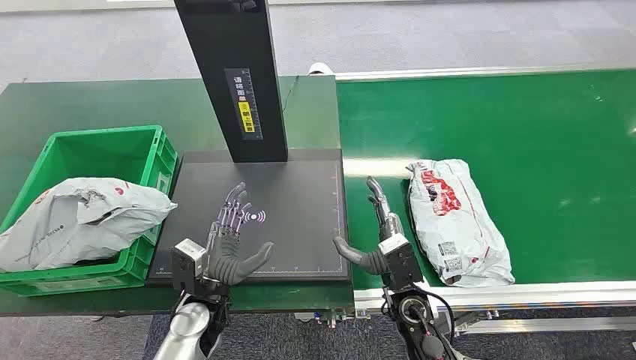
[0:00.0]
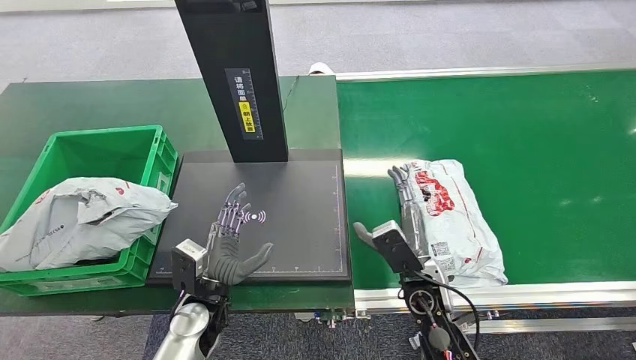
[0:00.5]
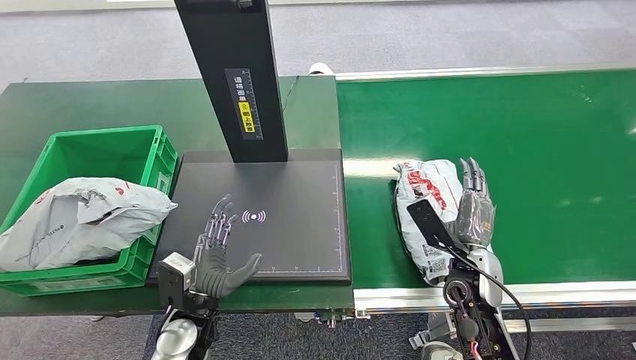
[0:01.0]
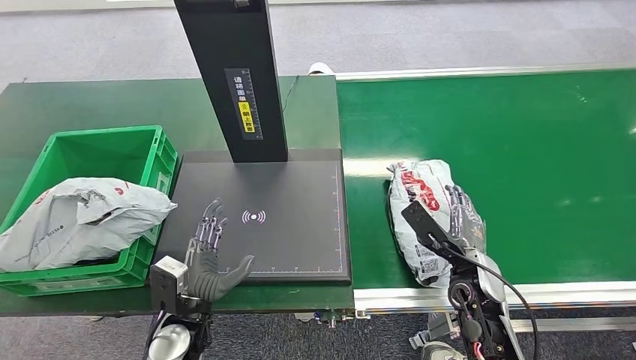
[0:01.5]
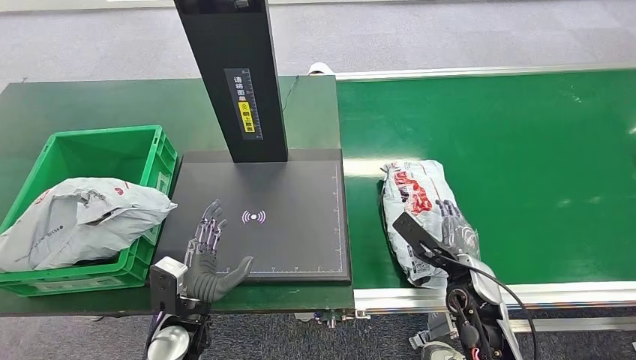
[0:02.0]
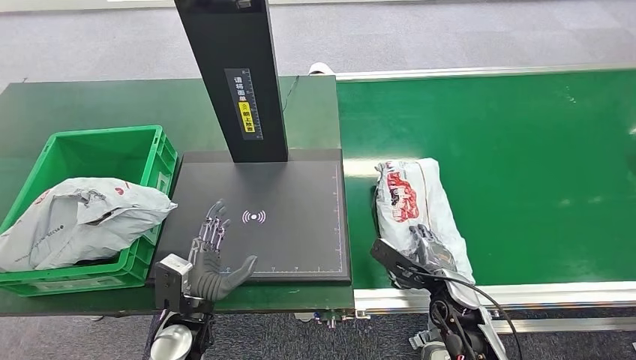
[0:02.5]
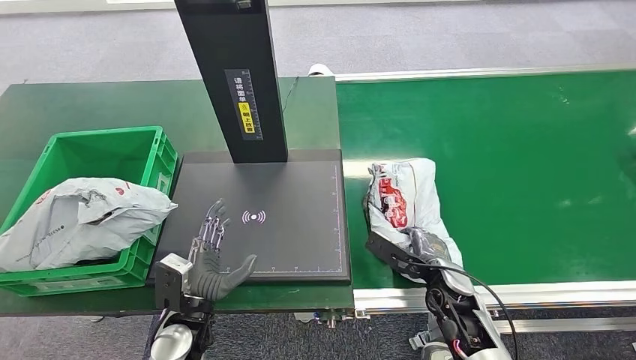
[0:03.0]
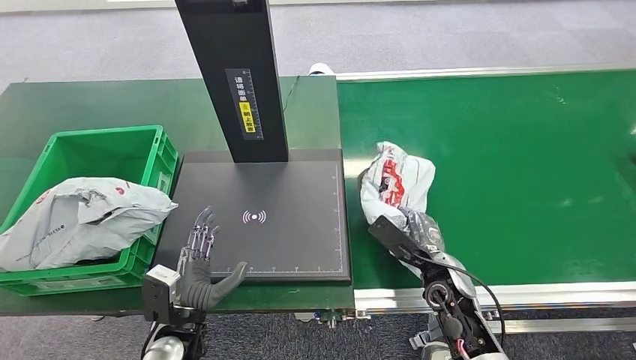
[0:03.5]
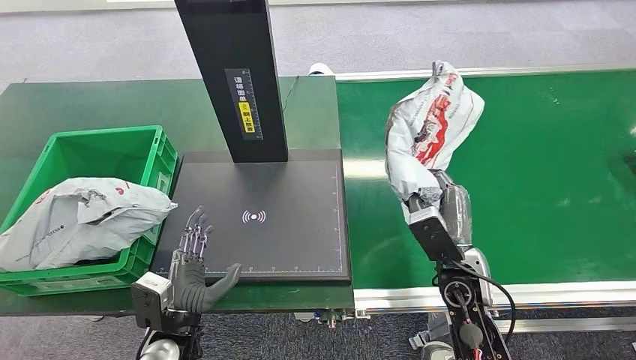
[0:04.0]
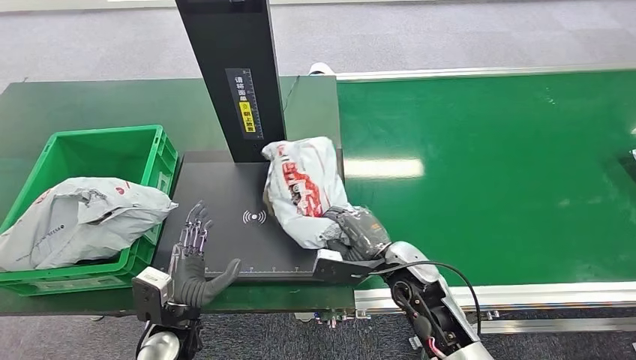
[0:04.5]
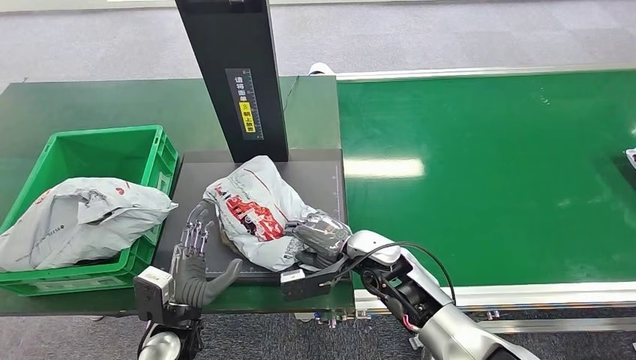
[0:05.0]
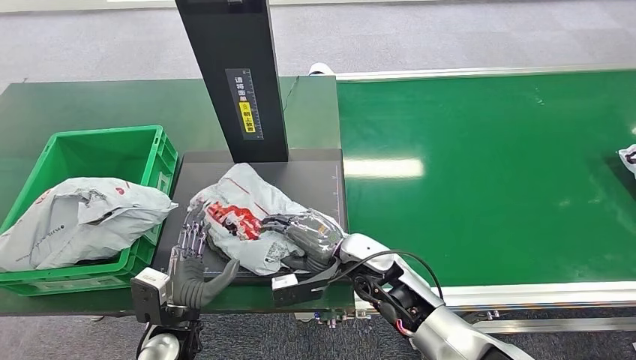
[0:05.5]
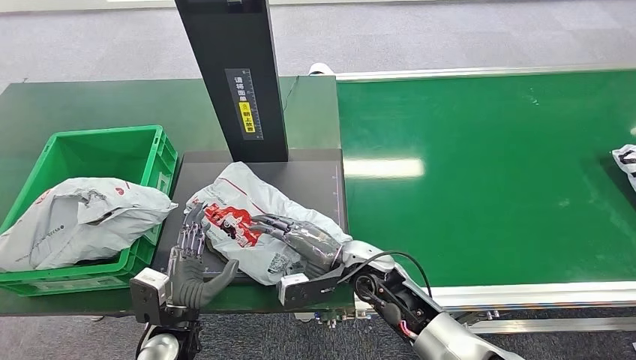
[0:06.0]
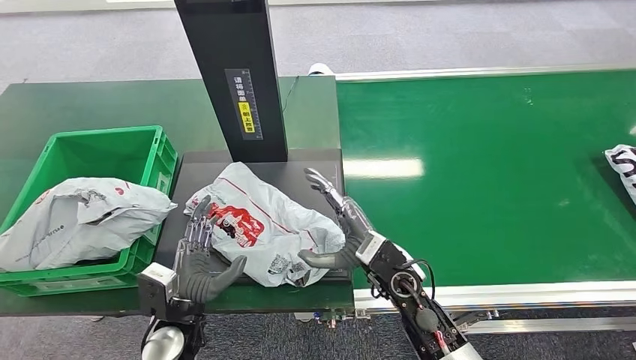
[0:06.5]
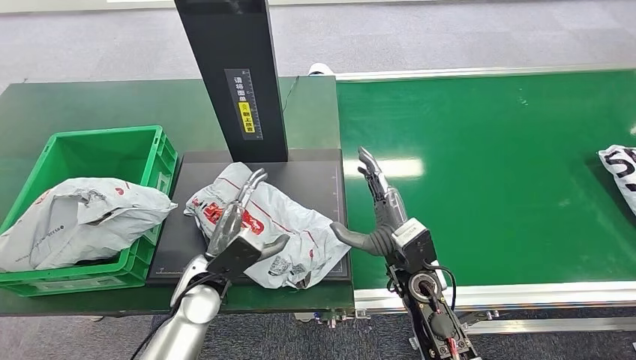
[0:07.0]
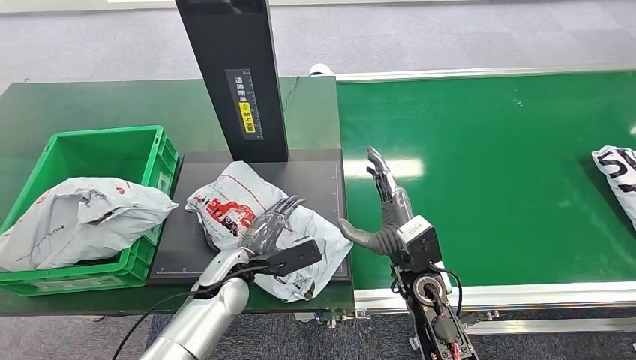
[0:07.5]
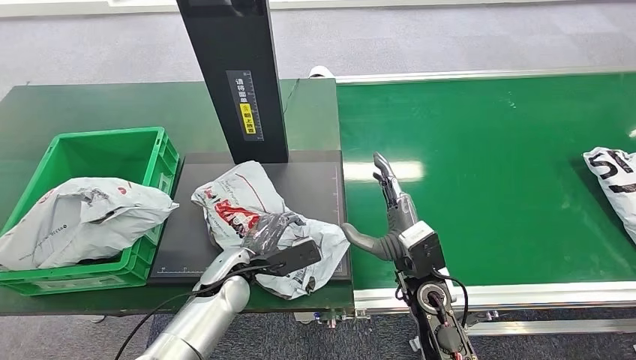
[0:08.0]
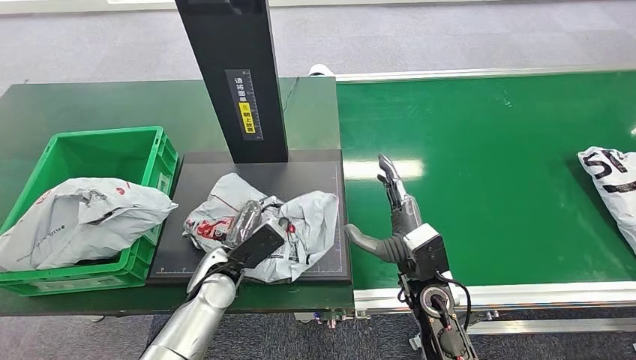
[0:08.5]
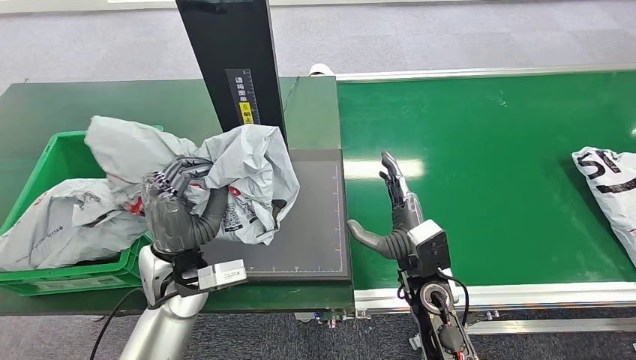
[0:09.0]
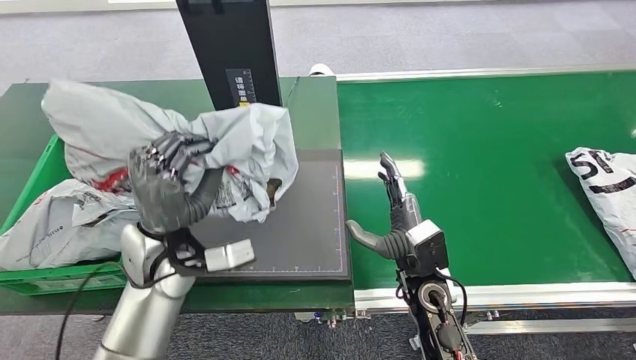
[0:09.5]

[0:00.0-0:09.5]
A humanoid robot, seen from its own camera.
Step, 0:00.0 to 0:04.0: Pick up the package from the conveyor belt.
Step, 0:04.5 to 0:06.5: Place the package onto the inbound machine.
Step, 0:07.0 to 0:09.0: Pick up the package from the inbound machine.
0:02.0 to 0:04.0: The right hand changes place by roughly 5 cm.
0:04.0 to 0:05.5: The right hand goes approximately 10 cm to the left.
0:05.5 to 0:07.5: The right hand changes place by some 5 cm; the left hand is displaced forward and to the right by about 10 cm.

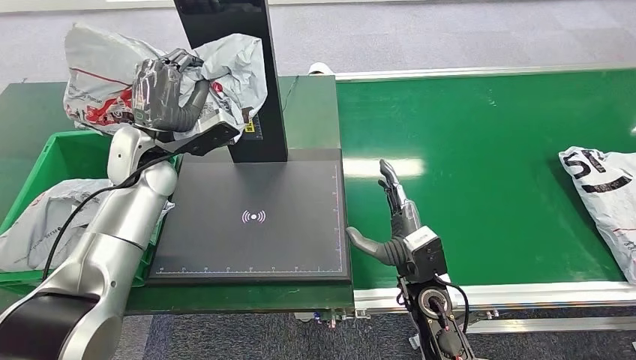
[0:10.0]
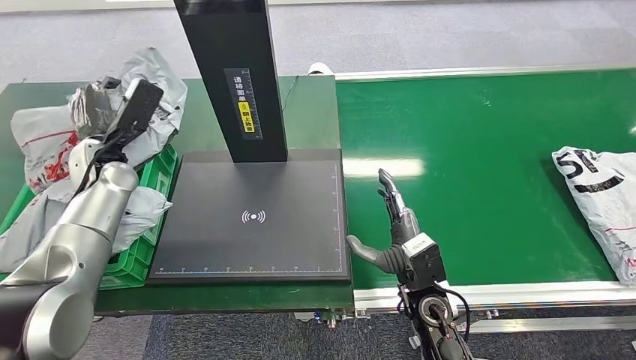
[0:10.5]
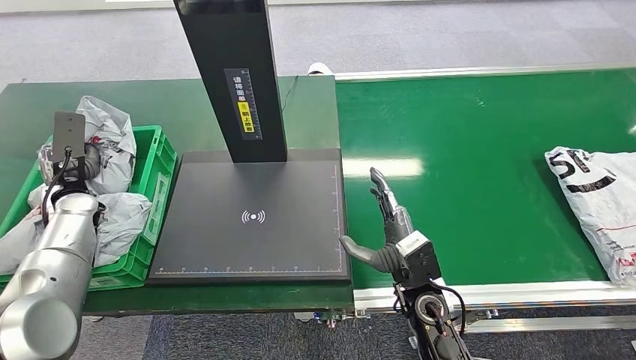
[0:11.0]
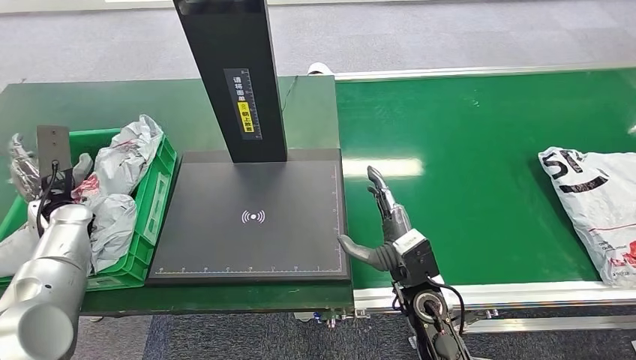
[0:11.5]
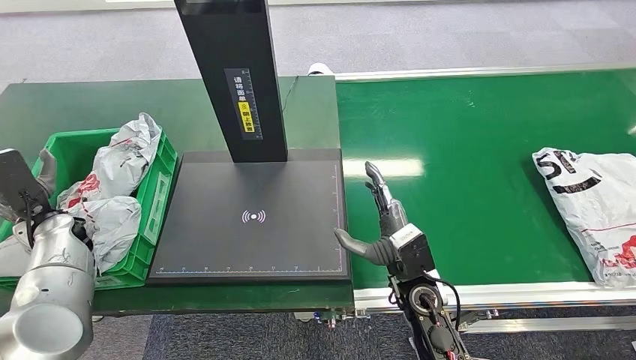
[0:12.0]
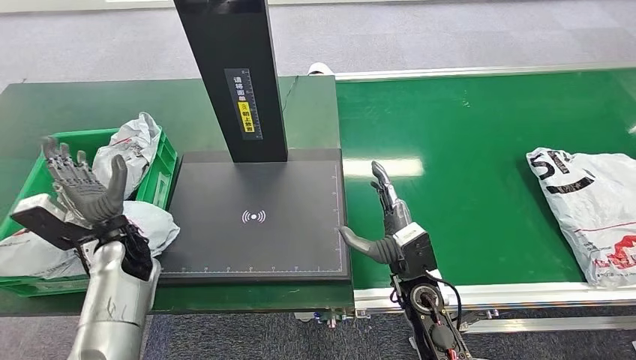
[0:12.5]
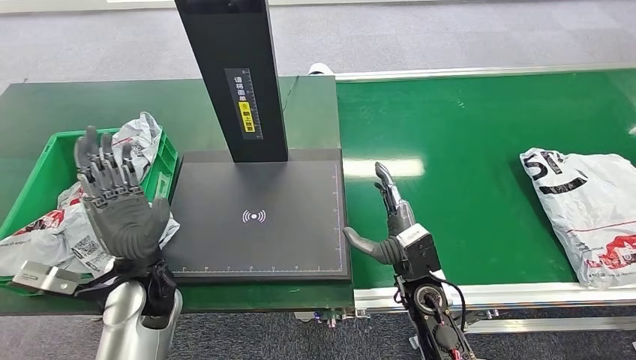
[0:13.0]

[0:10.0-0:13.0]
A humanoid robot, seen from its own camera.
Step, 0:10.0 to 0:13.0: Place the package into the parcel locker.
0:11.5 to 0:13.0: The left hand goes roughly 25 cm to the right and backward.

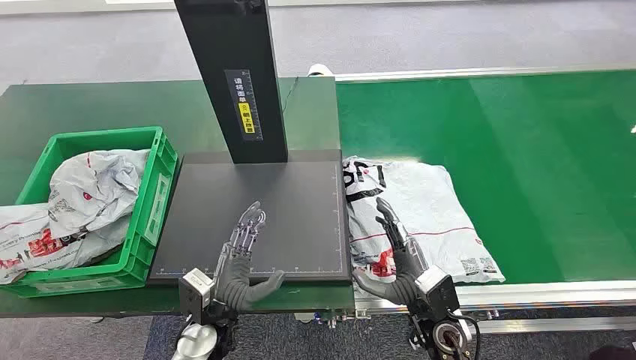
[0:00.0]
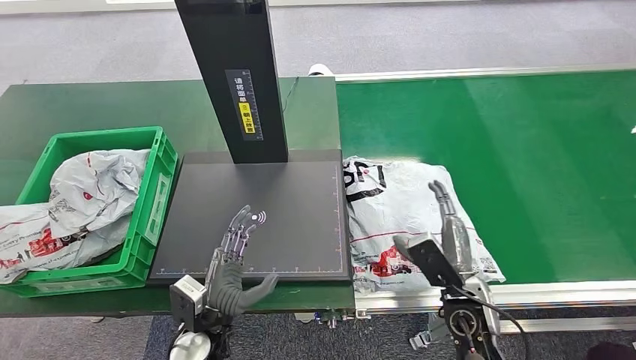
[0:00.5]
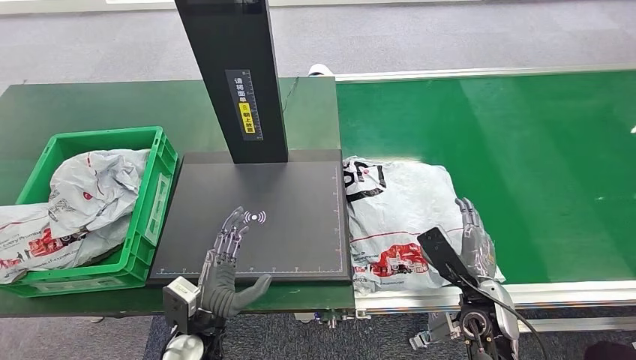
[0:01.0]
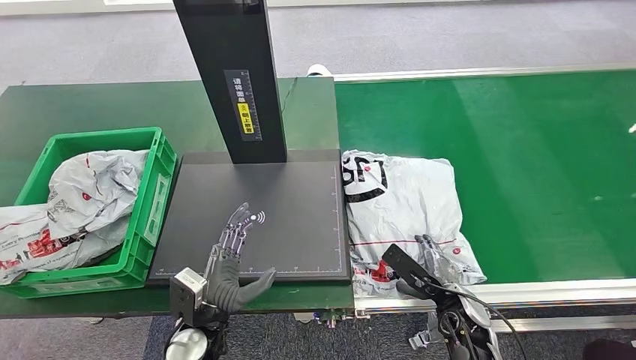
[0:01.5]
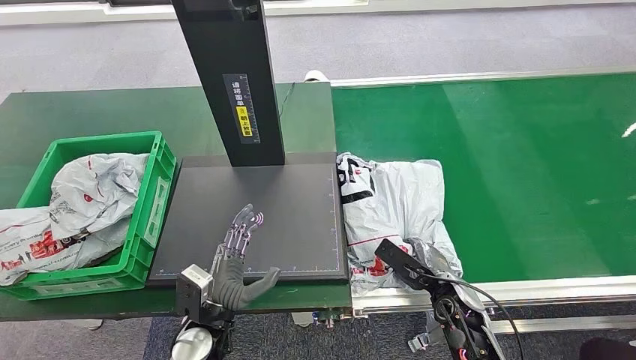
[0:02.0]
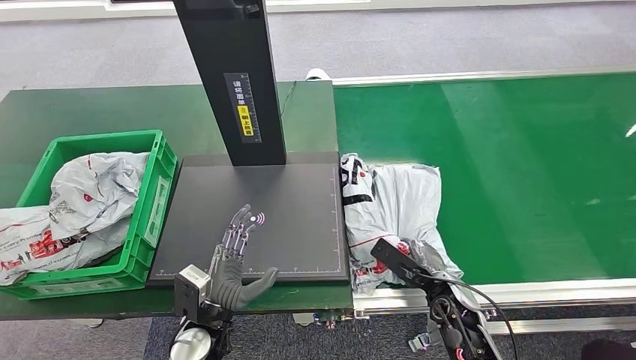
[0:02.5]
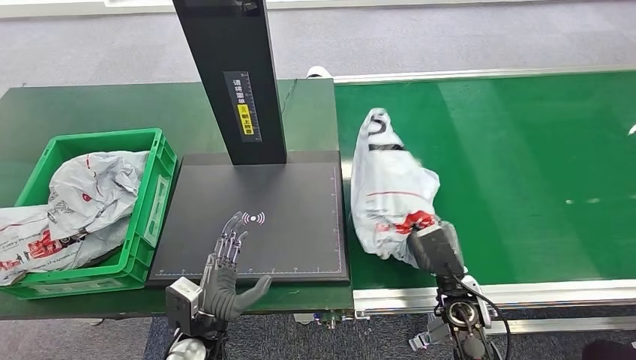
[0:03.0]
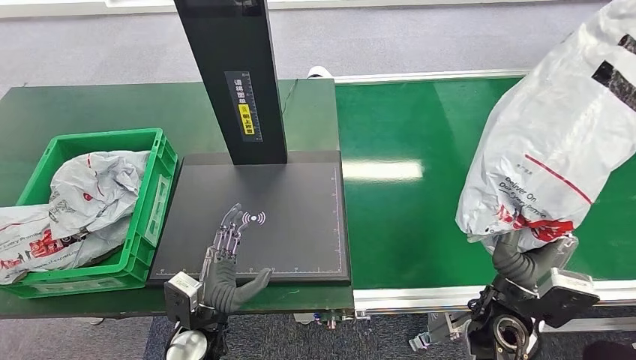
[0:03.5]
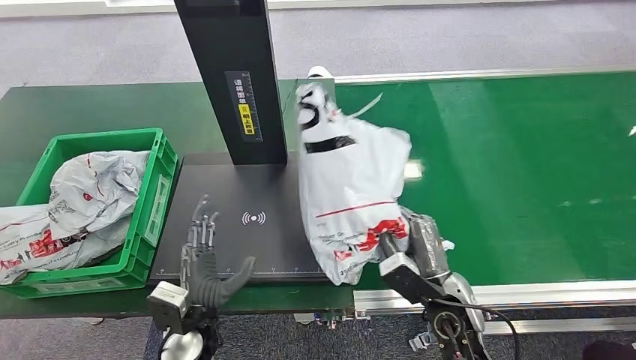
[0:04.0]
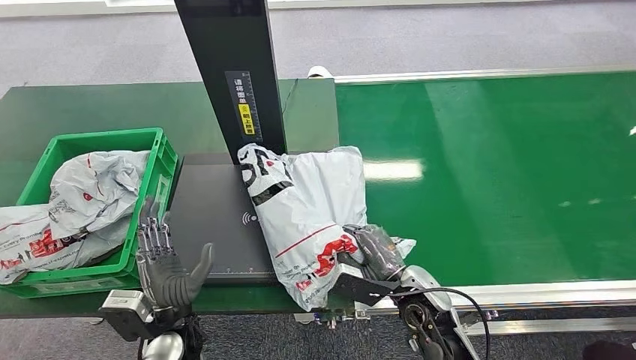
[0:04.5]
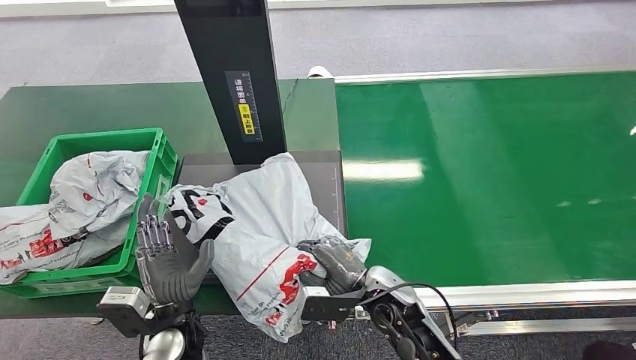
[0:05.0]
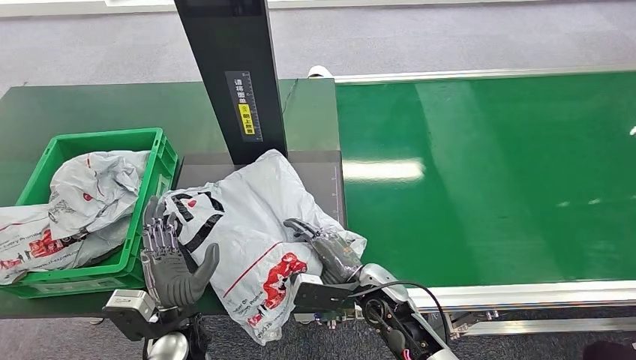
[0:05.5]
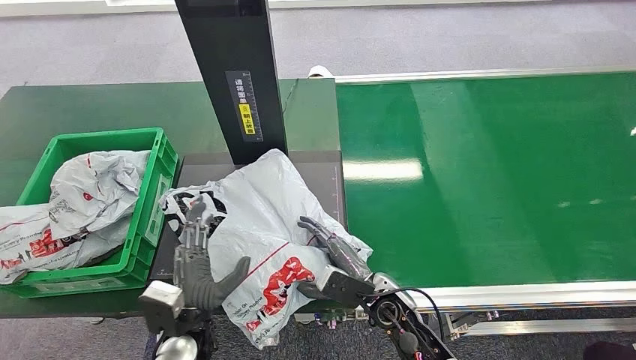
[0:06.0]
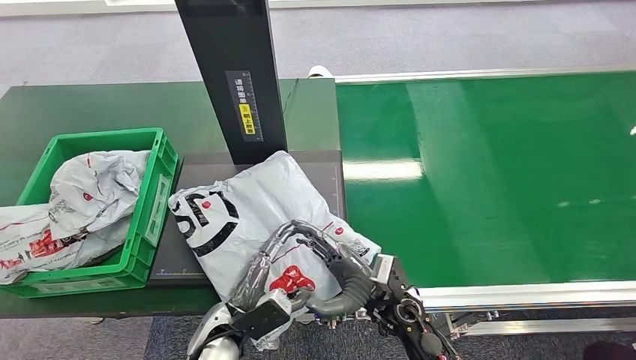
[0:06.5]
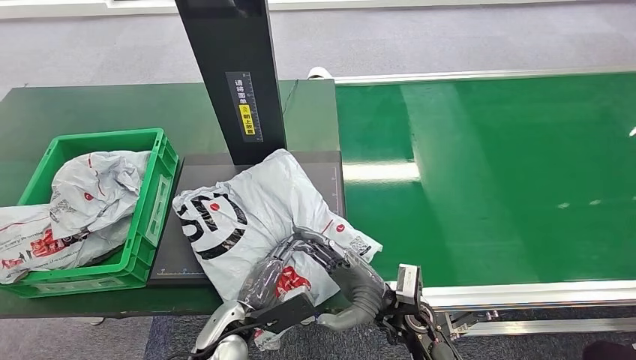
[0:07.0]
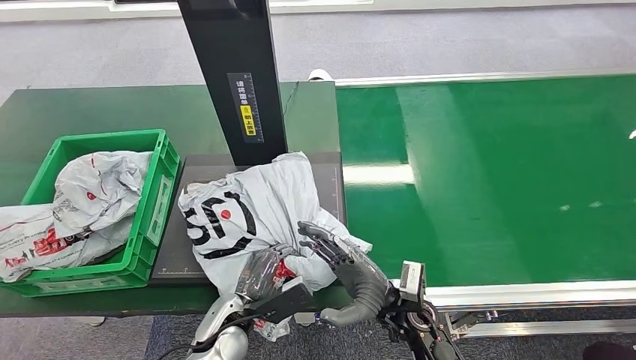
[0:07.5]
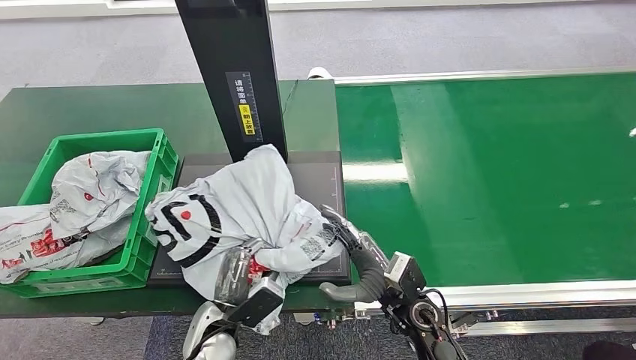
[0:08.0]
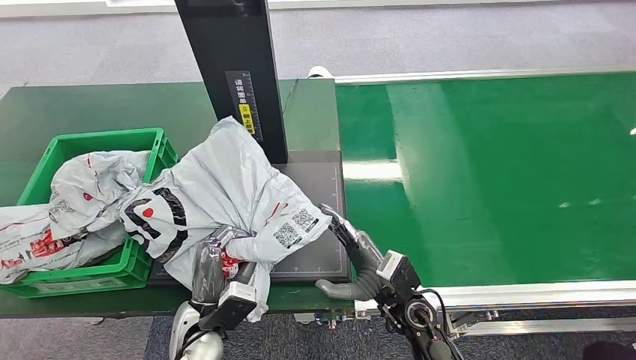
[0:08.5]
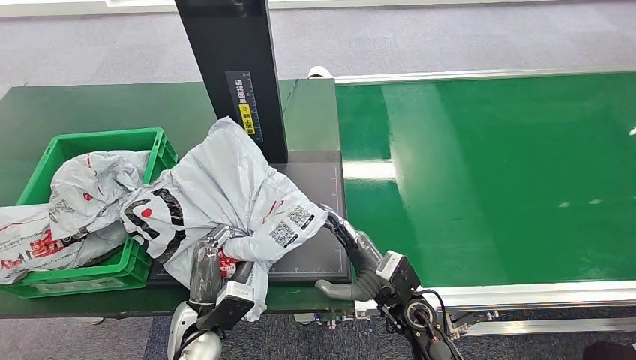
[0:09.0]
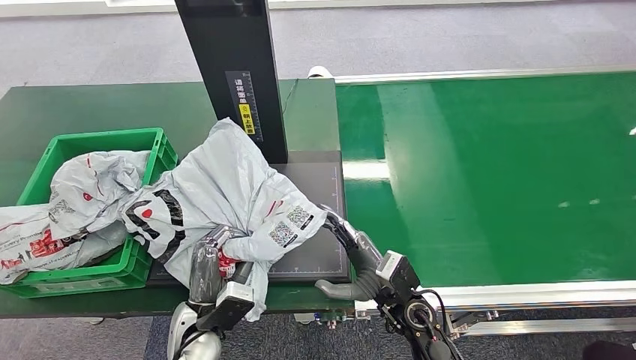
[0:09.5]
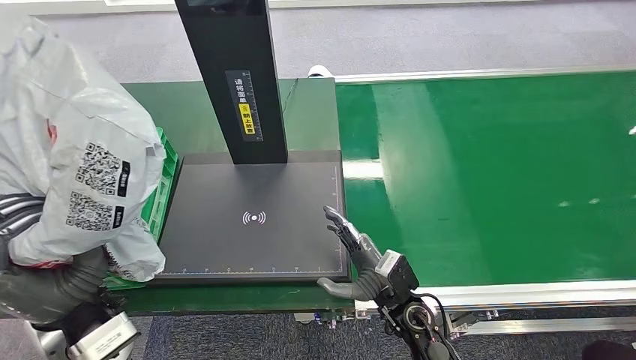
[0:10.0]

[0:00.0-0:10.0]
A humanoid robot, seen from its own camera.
Step, 0:00.0 to 0:03.5: Pick up the package from the conveyor belt.
Step, 0:04.0 to 0:06.5: Place the package onto the inbound machine.
Step, 0:07.0 to 0:08.5: Pick up the package from the inbound machine.
